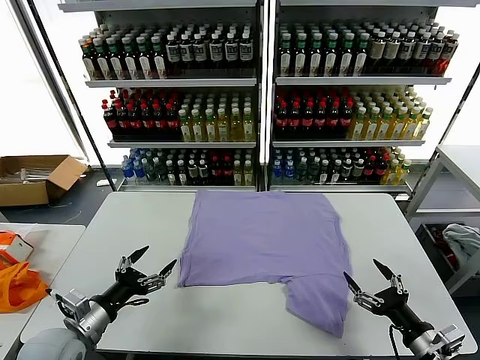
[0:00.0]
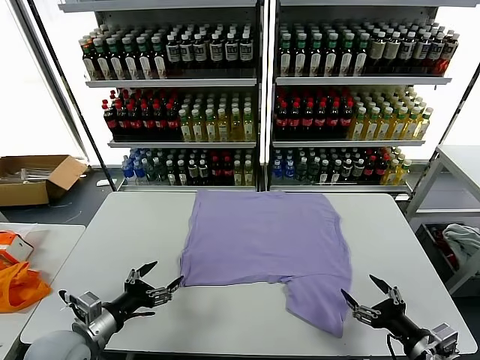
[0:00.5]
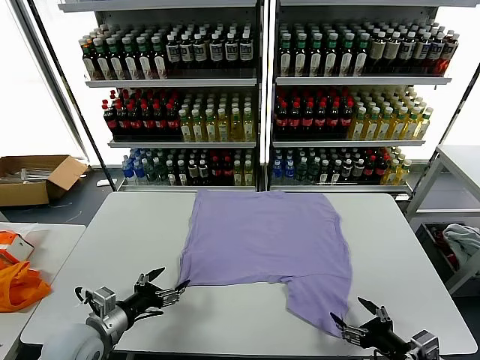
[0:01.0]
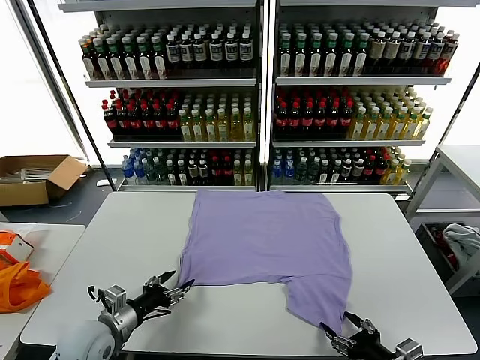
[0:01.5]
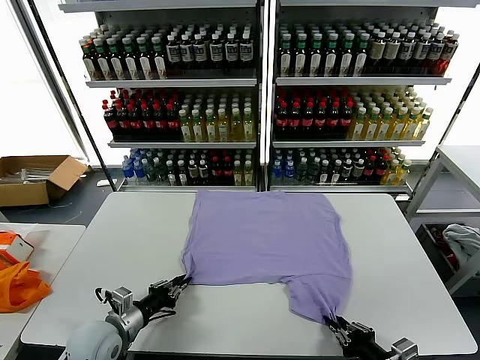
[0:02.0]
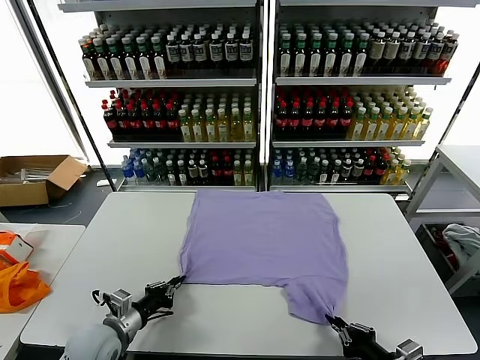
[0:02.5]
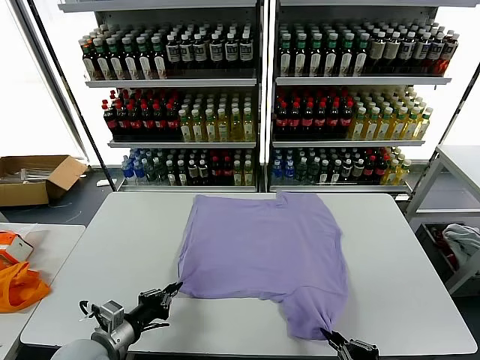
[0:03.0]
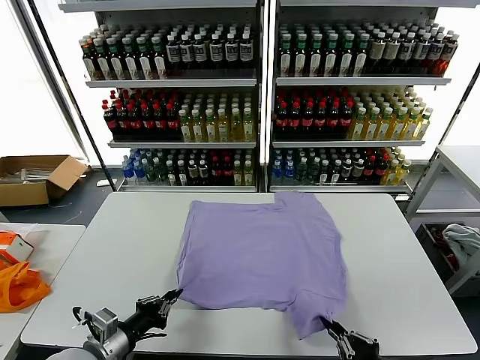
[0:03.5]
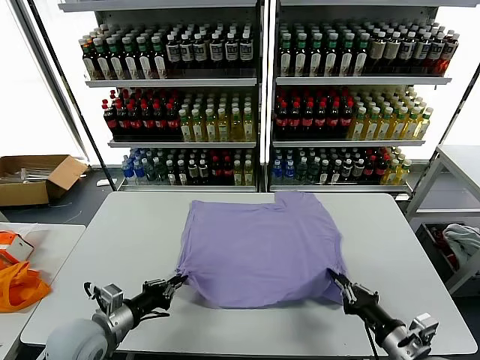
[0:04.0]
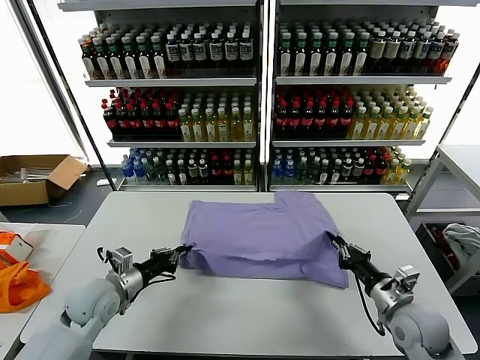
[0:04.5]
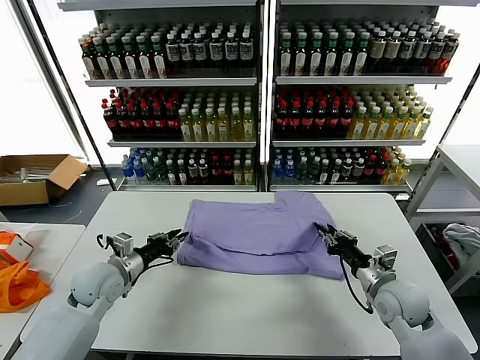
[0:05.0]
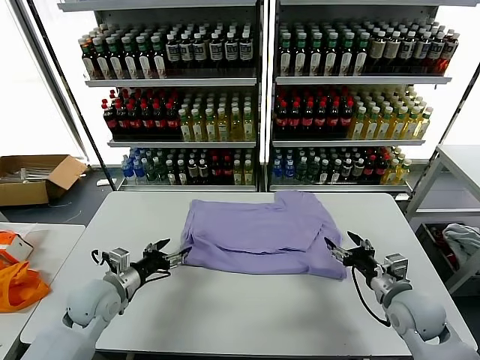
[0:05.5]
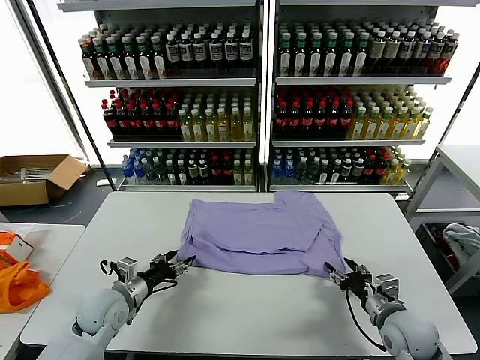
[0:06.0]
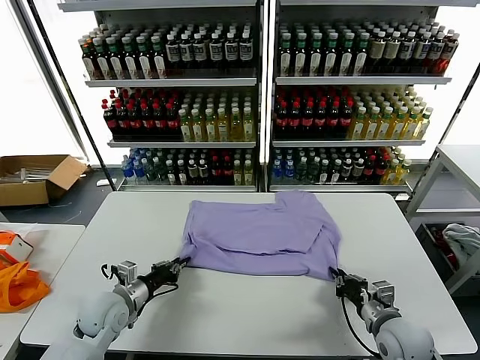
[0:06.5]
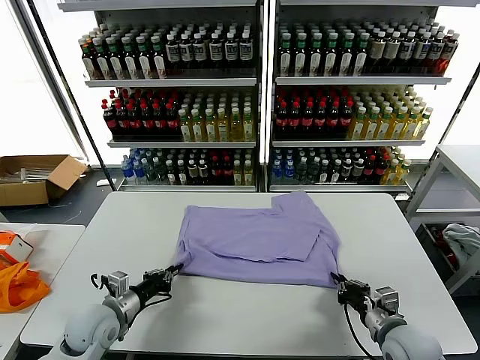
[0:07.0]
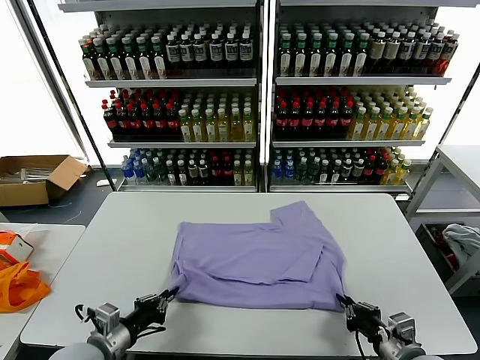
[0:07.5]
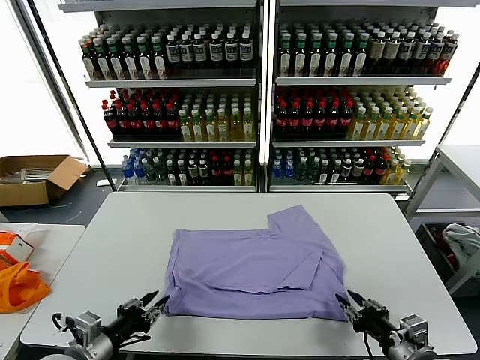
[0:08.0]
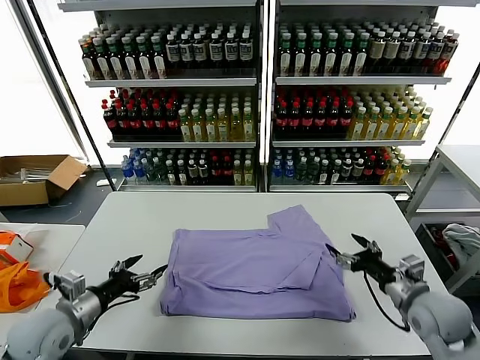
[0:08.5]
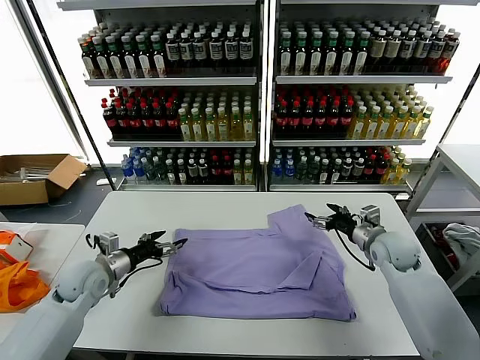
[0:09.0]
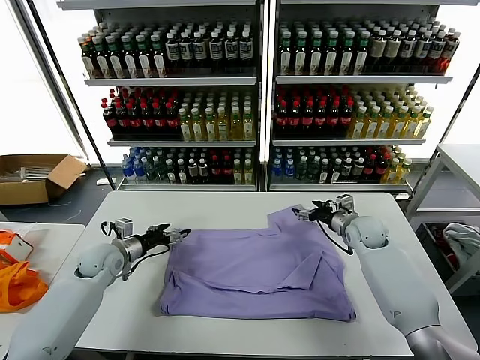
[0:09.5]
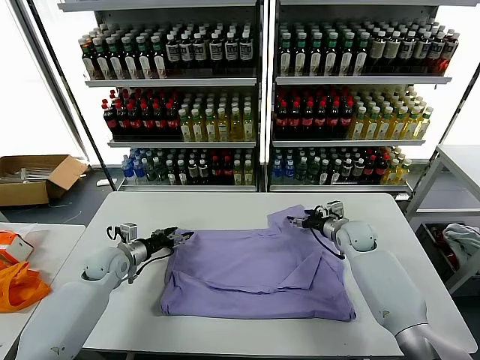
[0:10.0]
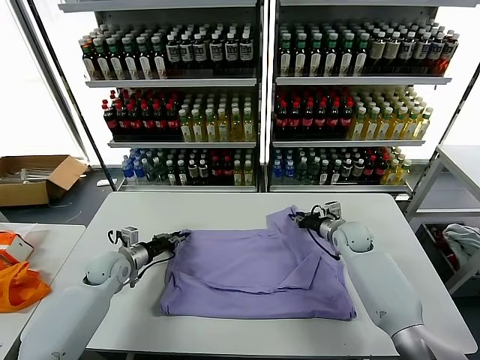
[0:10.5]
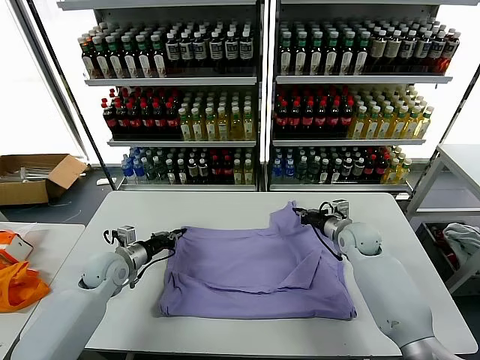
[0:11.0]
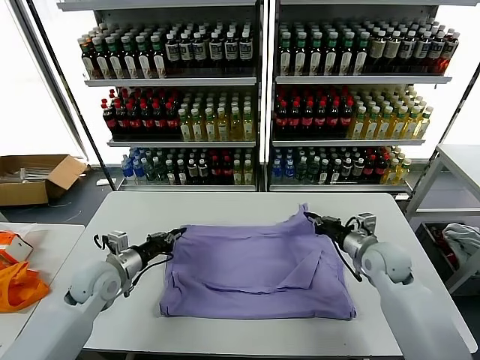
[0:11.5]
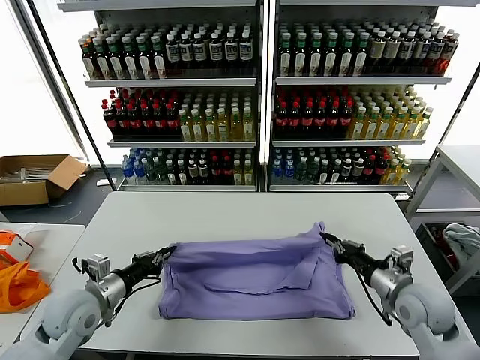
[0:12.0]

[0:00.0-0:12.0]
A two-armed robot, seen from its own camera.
Task of the whole recording: fold and organize the clothes.
Step, 0.0 to 2.0 s: use both grippers simultaneously to clamp the lower edge of the clothing fabric.
Step, 2.5 to 5.0 s: use both grippers to drag the lower edge of the fabric forward and fold it over the upper edge.
Step, 5.5 to 8.0 s: Drag the clothes downward with both gripper.
Step, 8.5 to 10.5 s: use both grippers simultaneously to clamp the upper edge of the clothing fabric.
2.0 to 4.0 s: The left gripper shifts about 5 cm upward, while the right gripper moves forward, roughly 5 cm.
4.0 to 6.0 s: Both grippers move forward, approximately 5 cm. The left gripper opens its fingers. Meanwhile the right gripper opens.
6.0 to 8.0 s: The left gripper shifts some 15 cm backward, and closes up. The right gripper is displaced backward by roughly 10 cm, and closes, then opens again.
8.0 to 10.0 s: The two grippers go approximately 30 cm forward. The left gripper opens its fingers.
10.0 to 12.0 s: The left gripper heads backward and upward, covering about 15 cm, and closes its fingers, while the right gripper travels backward by roughly 25 cm, and closes up.

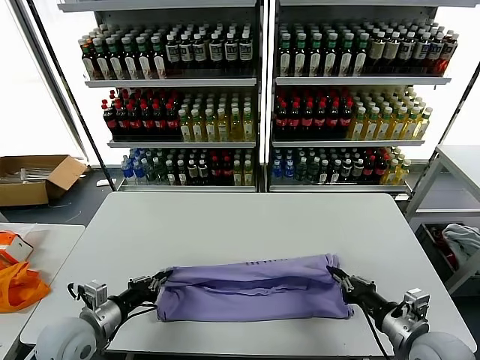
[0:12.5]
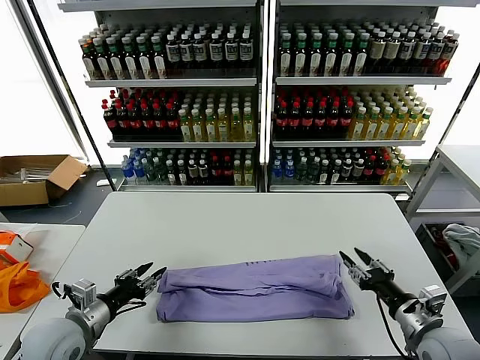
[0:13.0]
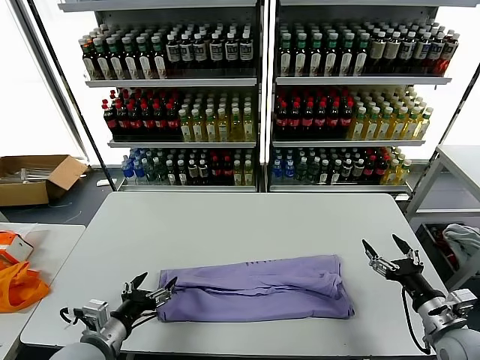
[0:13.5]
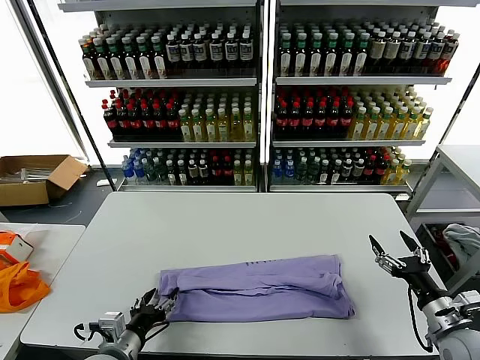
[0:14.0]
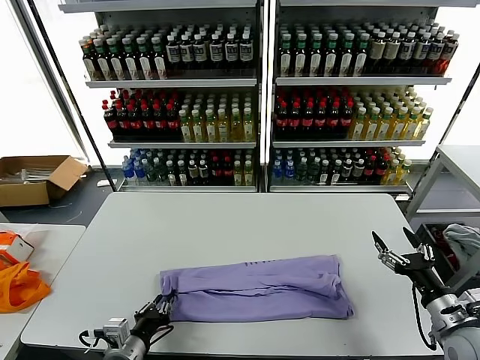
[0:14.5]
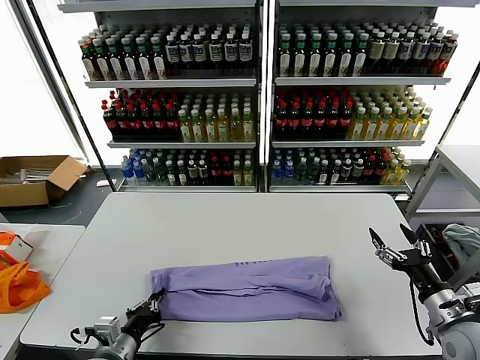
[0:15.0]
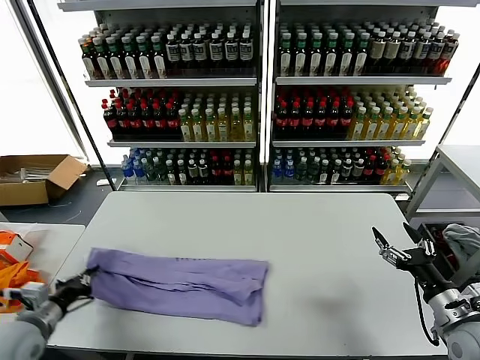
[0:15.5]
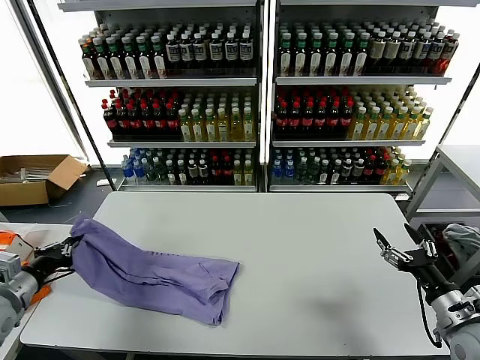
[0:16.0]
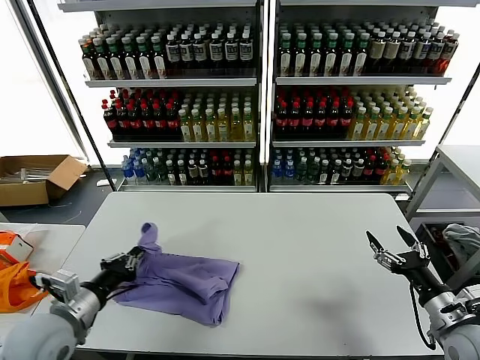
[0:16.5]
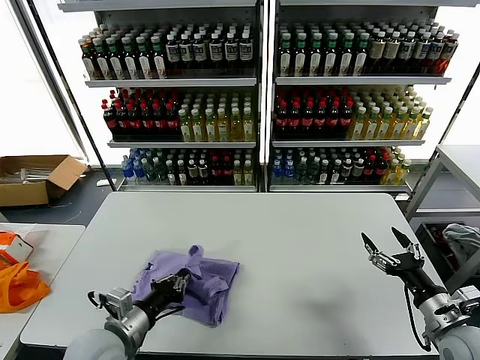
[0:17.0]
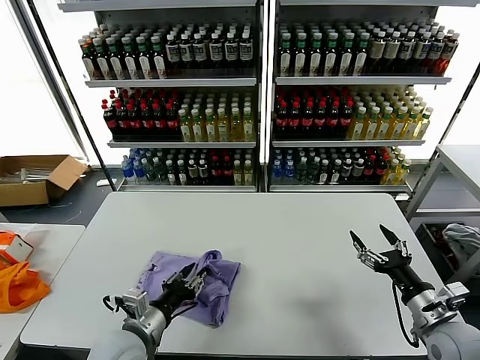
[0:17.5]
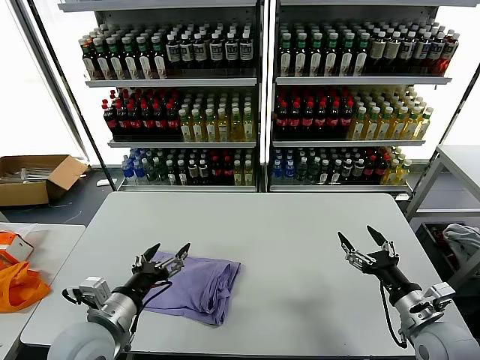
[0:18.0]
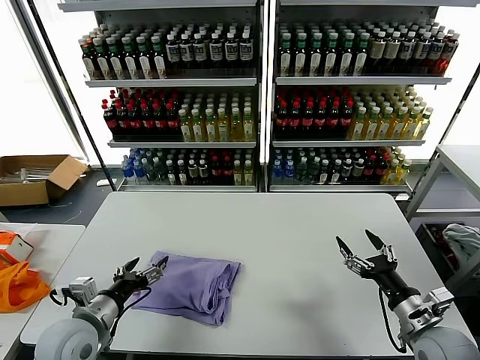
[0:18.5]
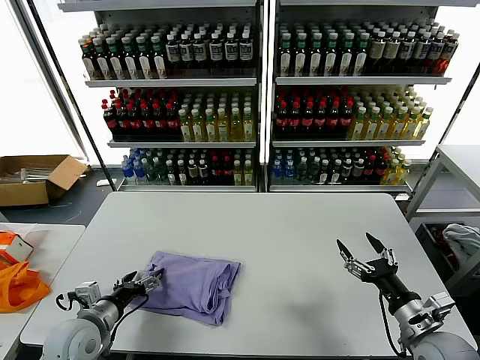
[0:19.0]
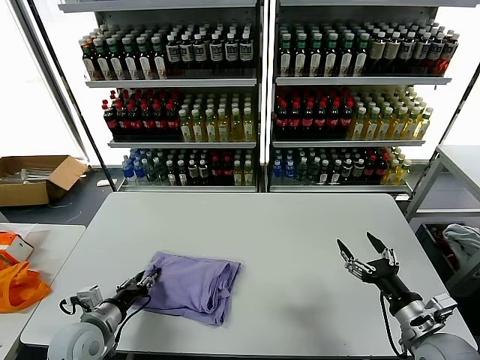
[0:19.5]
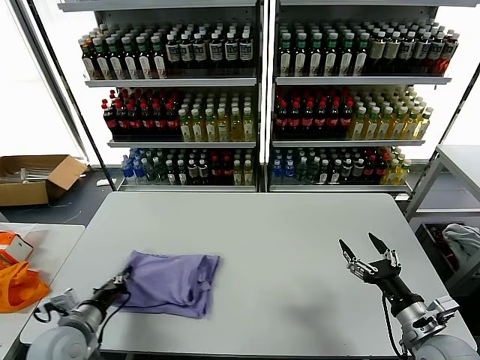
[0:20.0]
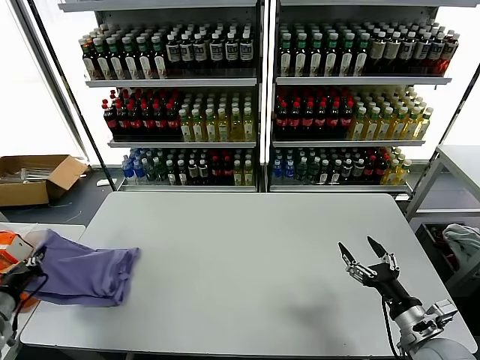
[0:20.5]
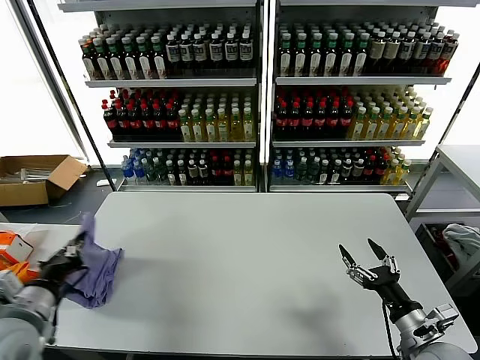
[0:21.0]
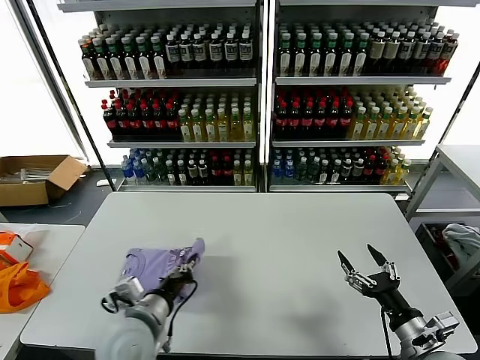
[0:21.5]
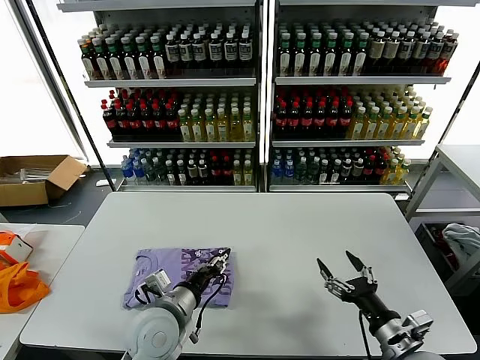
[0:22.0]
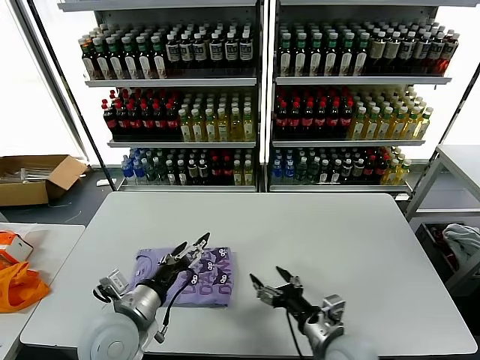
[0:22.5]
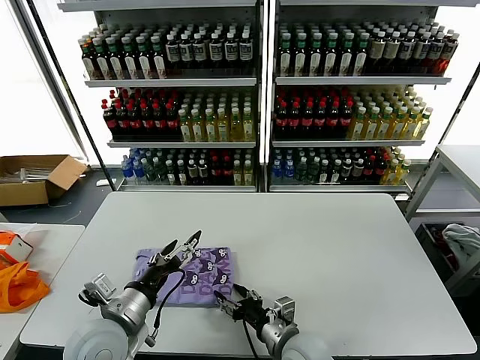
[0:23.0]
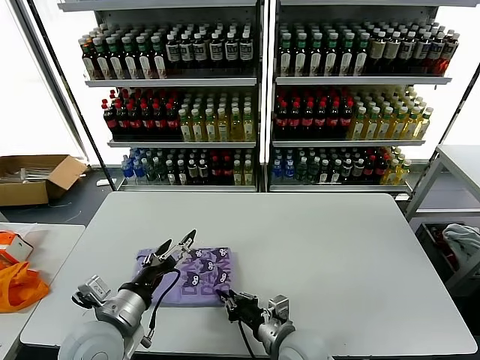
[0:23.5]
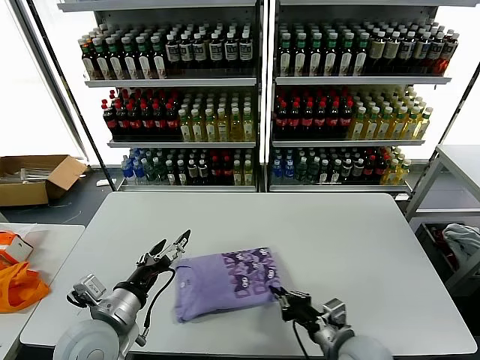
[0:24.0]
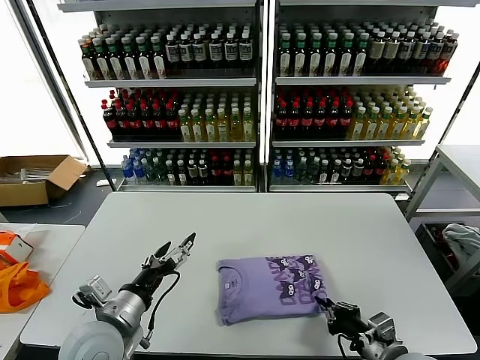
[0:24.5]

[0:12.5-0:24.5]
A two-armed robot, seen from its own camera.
Task of the whole recording: fold and organize the clothes.
Step, 13.0 to 14.5 s: use the left gripper to clamp the left edge of the fabric.
Step, 15.0 to 17.5 s: use the left gripper to drag the left edge of the fabric to the left and folds it over the right edge.
Step, 18.0 to 21.5 s: Flip the folded clothes over with left gripper.
12.5 to 14.5 s: The left gripper shifts some 10 cm to the right and backward, and opens, then closes again; the right gripper shifts approximately 10 cm to the right, and opens up.
14.5 to 16.5 s: The left gripper moves upward and to the left, roughly 15 cm.
16.5 to 18.5 s: The left gripper moves about 10 cm to the right and comes back, and opens its fingers. Meanwhile the right gripper heads to the left, covering roughly 5 cm.
18.5 to 20.5 s: The left gripper is displaced to the left by approximately 15 cm, and closes.
20.5 to 22.5 s: The right gripper moves to the left, approximately 15 cm; the left gripper goes roughly 25 cm to the right, and opens its fingers.
22.5 to 24.5 s: The right gripper is displaced to the right by approximately 10 cm, and closes up.

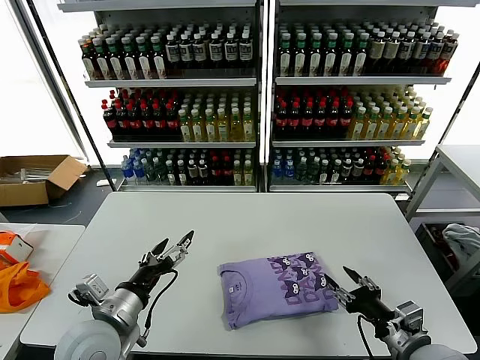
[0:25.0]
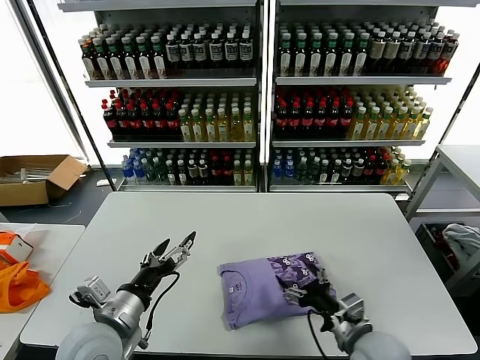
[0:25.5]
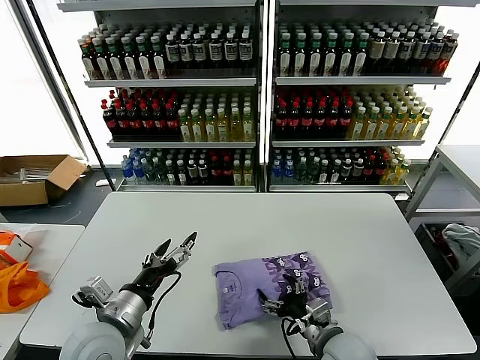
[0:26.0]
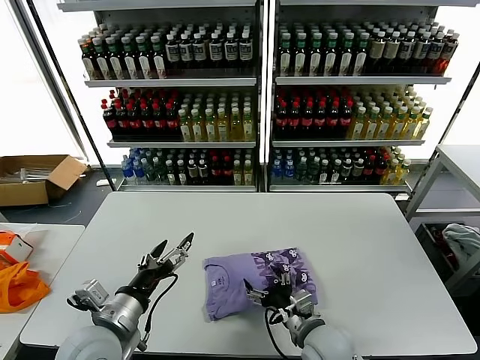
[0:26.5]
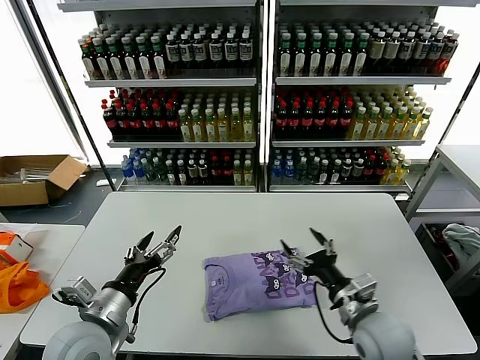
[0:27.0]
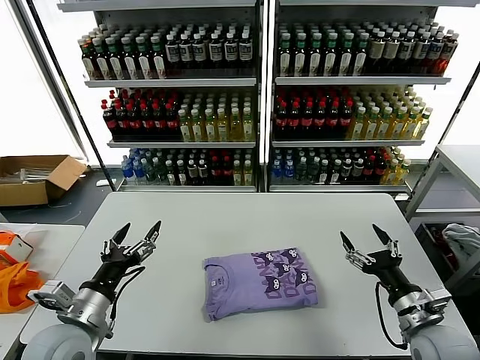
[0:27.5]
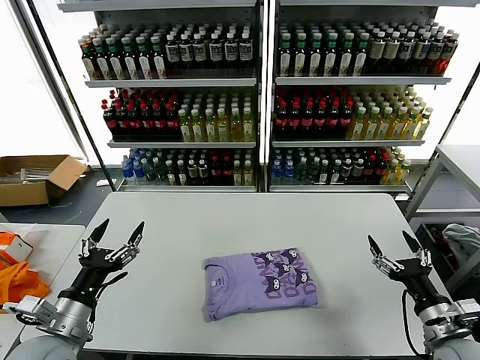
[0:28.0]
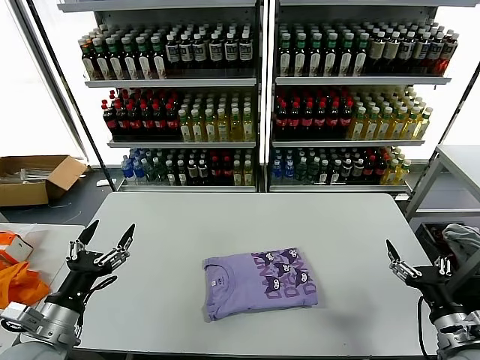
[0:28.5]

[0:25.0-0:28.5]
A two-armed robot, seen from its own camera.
Task of the whole recording: fold and organize the clothes.
25.0 to 27.0 s: The right gripper shifts about 10 cm to the left and forward, and opens up.
27.0 to 28.5 s: The right gripper goes roughly 20 cm to the right and backward, while the left gripper travels to the left by approximately 10 cm.
